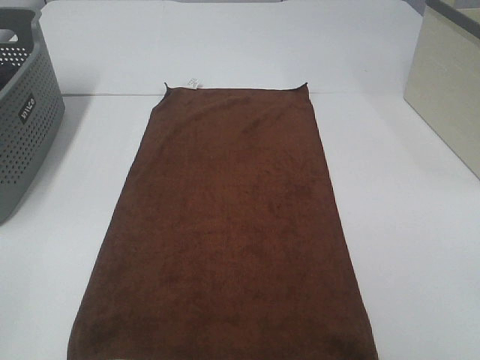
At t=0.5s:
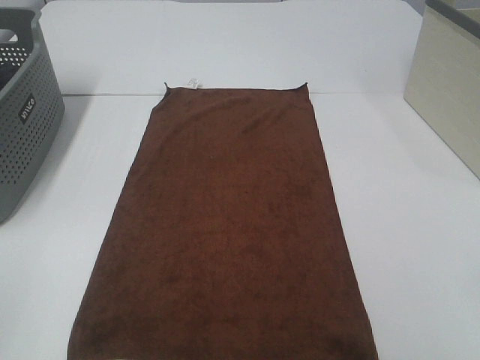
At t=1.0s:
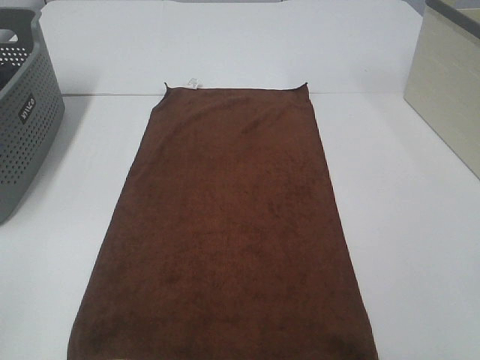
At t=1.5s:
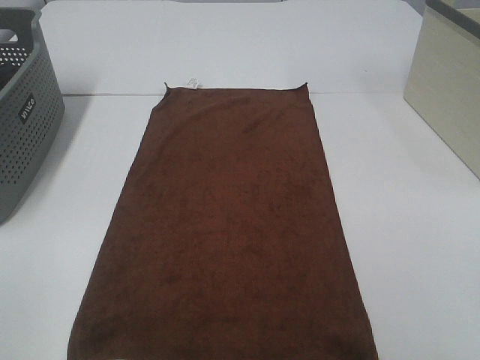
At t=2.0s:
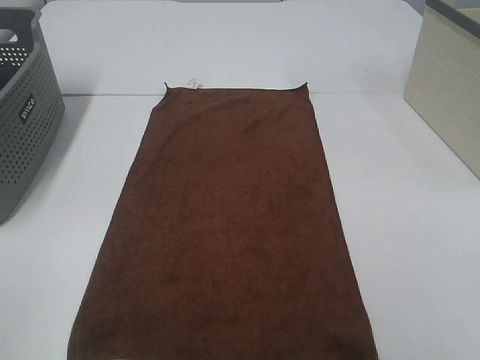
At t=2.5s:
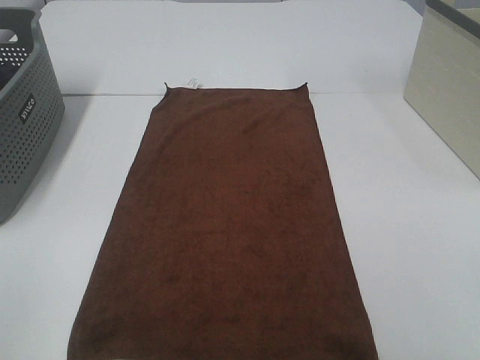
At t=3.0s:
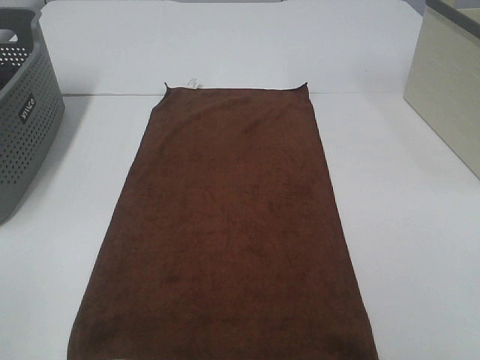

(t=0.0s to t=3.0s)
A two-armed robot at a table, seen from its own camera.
Task of the whole recording: Remove the towel and place it.
t=1.5s - t=3.0s: Both grippers stay about where they are.

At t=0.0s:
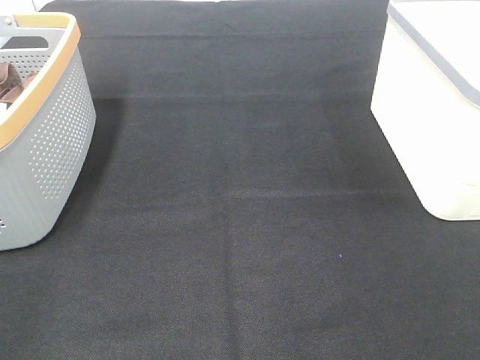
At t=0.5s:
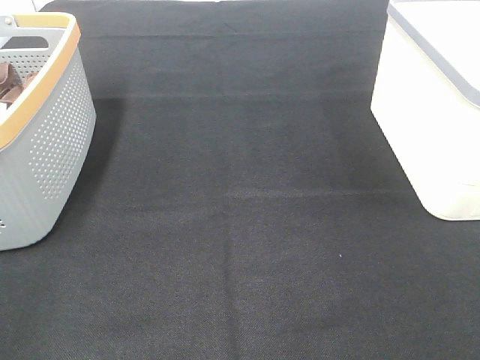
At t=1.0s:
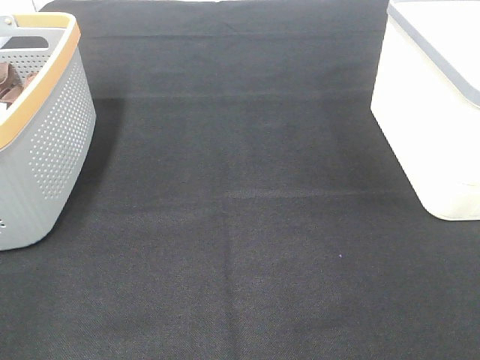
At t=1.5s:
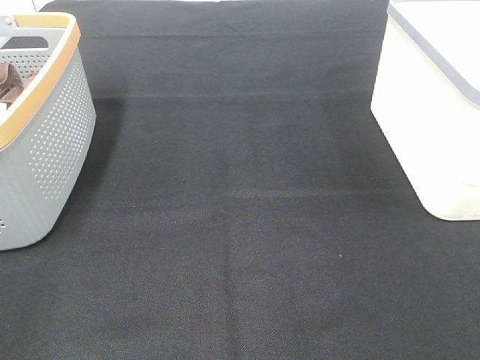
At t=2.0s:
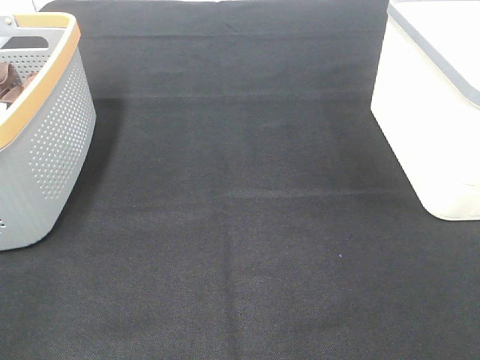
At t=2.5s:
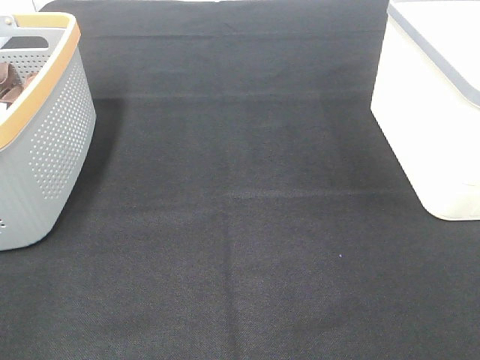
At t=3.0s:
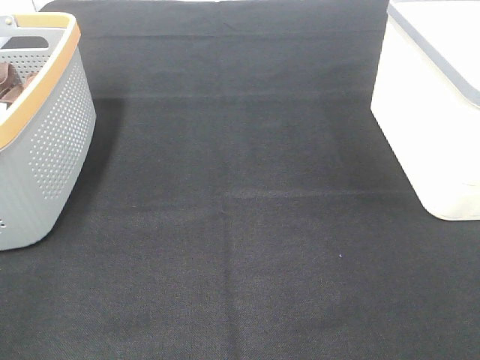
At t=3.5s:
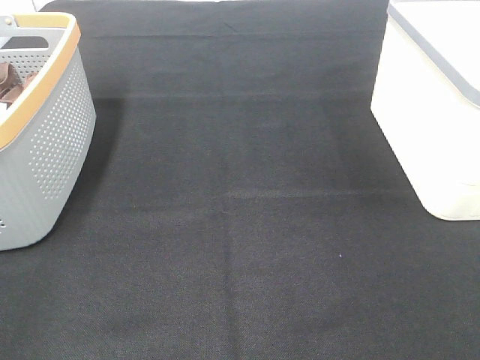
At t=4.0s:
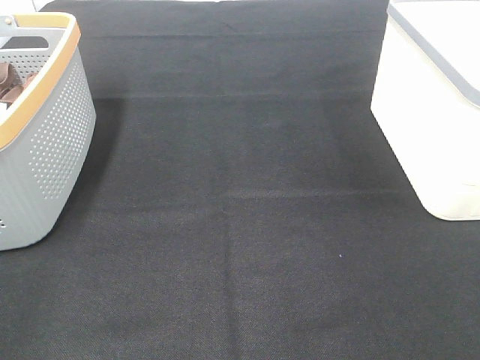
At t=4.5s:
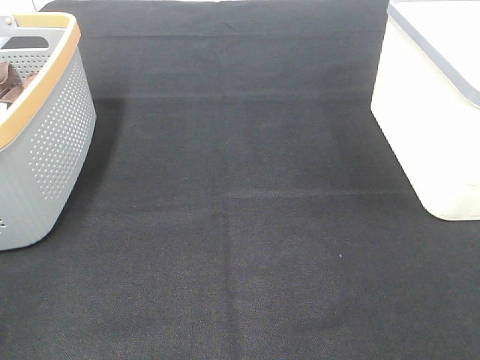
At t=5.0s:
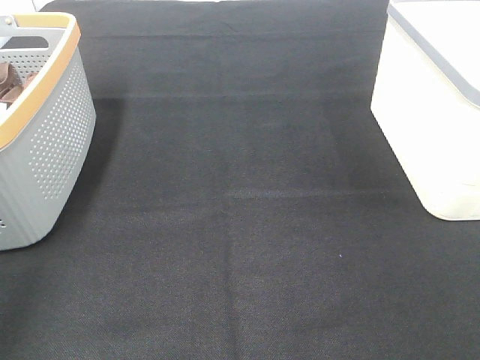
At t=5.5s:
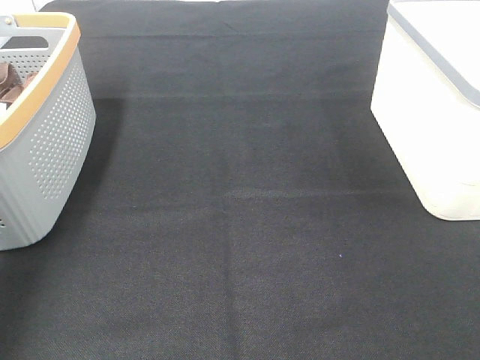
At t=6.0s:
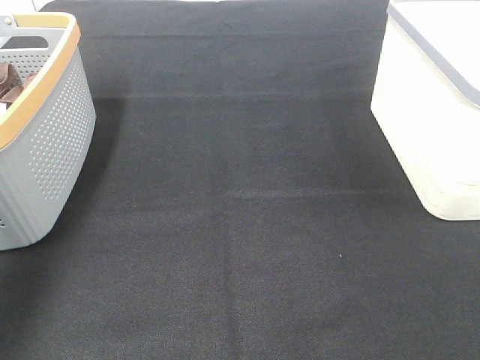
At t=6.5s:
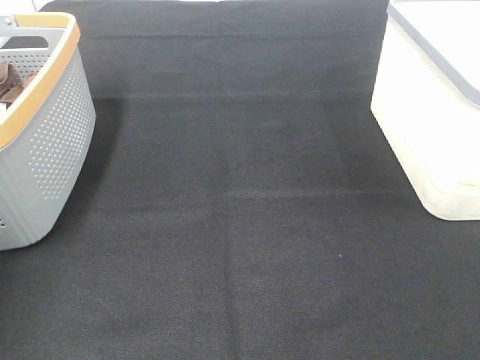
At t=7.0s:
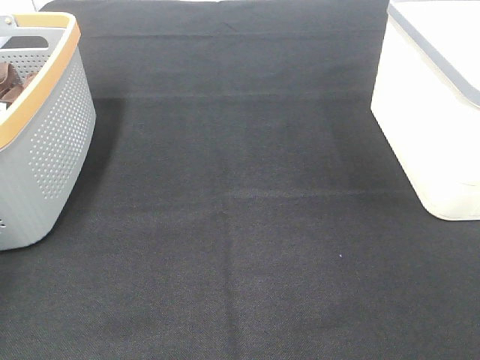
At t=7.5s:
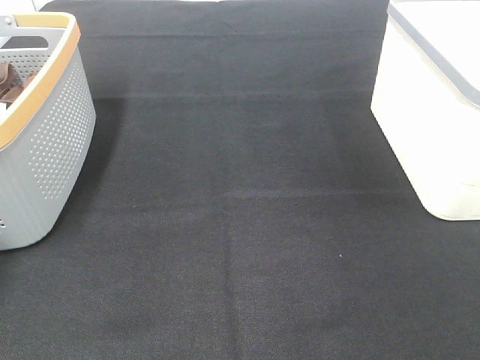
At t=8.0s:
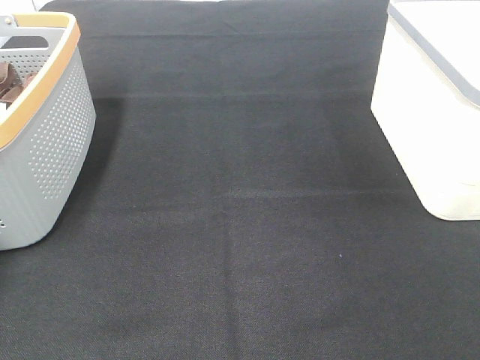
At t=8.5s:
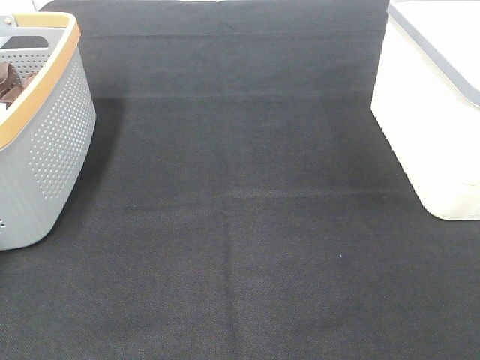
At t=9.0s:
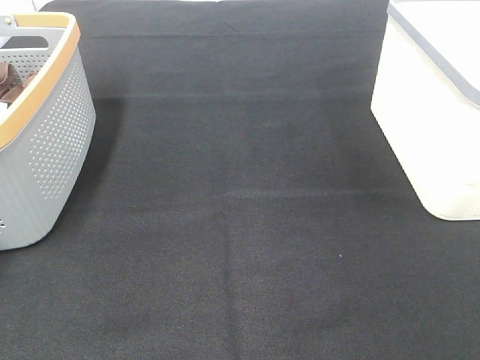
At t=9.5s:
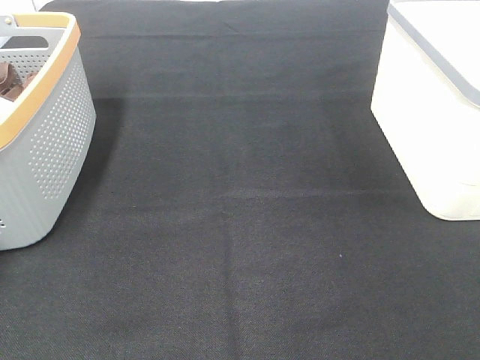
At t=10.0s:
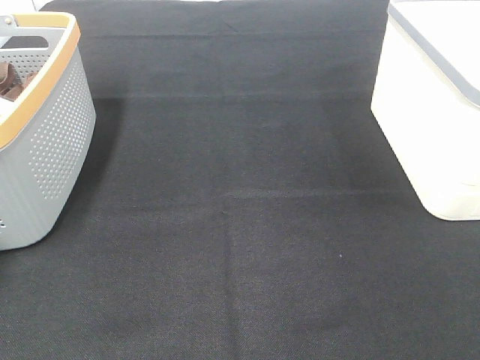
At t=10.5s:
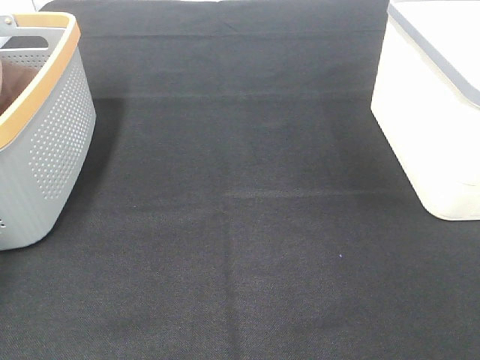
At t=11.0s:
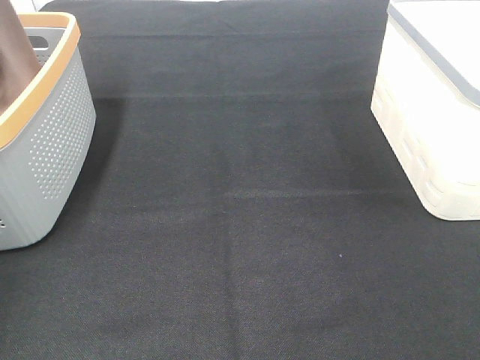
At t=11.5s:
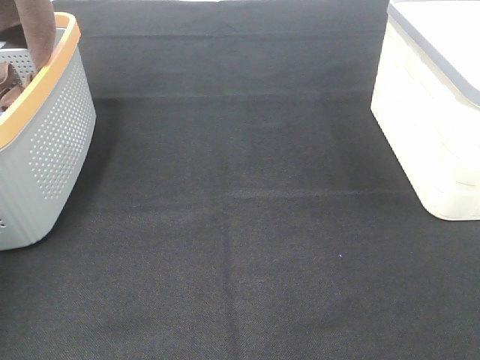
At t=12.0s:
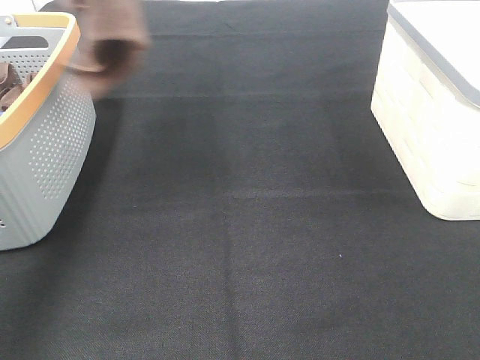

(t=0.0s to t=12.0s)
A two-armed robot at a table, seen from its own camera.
Task of the whole recording: Remove the towel and place it.
t=0.0s - t=4.0s: The two grippers keep their place.
t=4.0s - t=6.0s: The left gripper travels forward by roughly 30 cm.
t=6.0s - t=8.0s: The left gripper shifts approximately 20 cm forward, to the left and downward.
t=10.0s - t=12.0s: The left gripper shifts some 40 cm upward, to the right and backward.

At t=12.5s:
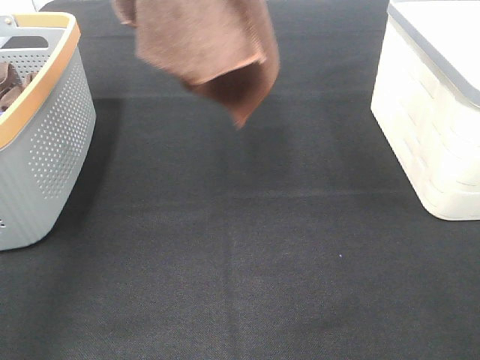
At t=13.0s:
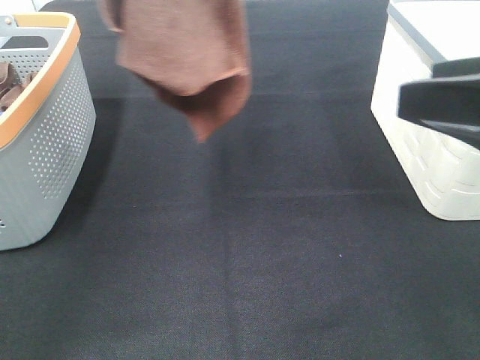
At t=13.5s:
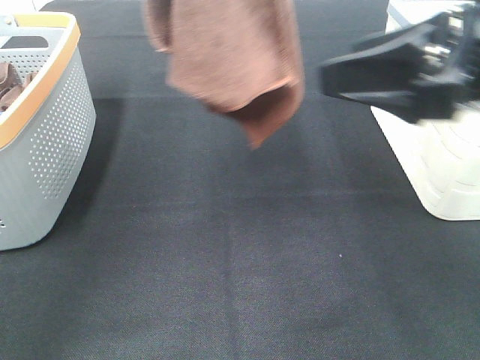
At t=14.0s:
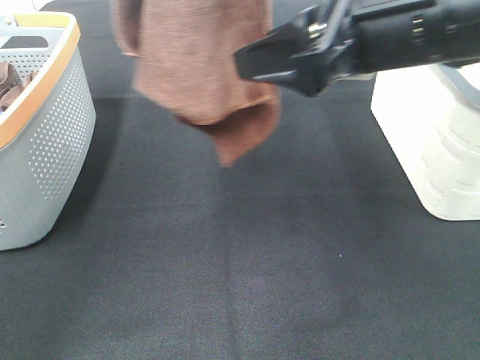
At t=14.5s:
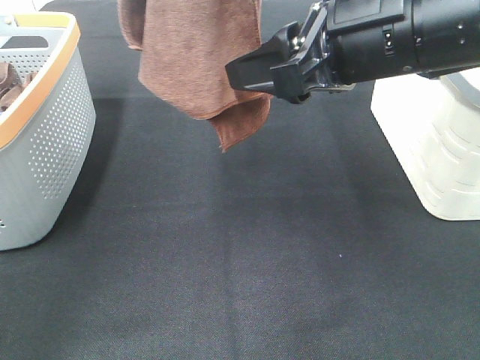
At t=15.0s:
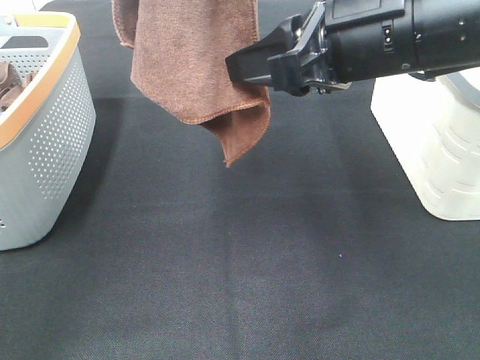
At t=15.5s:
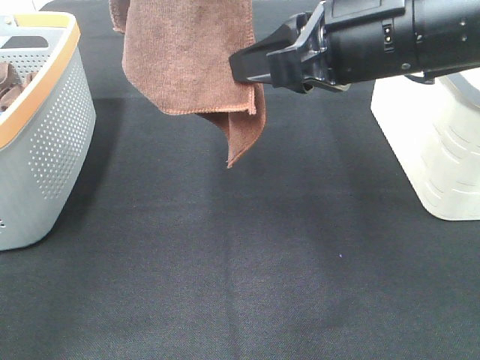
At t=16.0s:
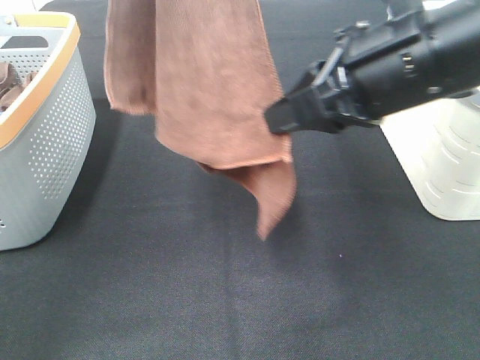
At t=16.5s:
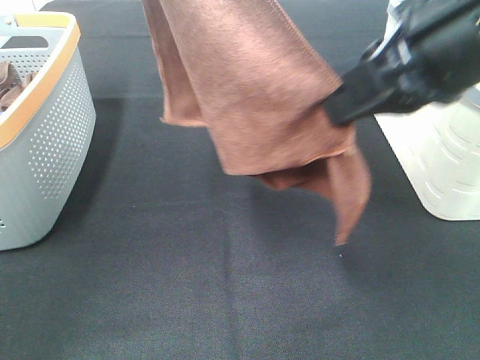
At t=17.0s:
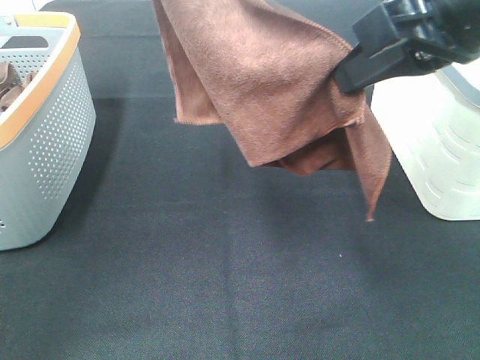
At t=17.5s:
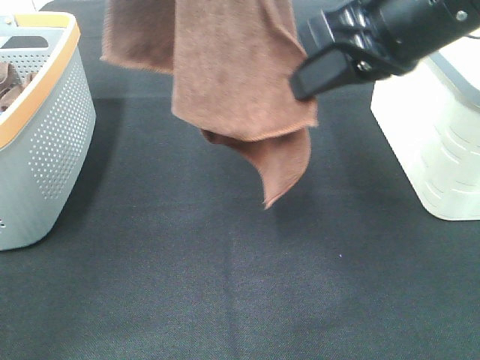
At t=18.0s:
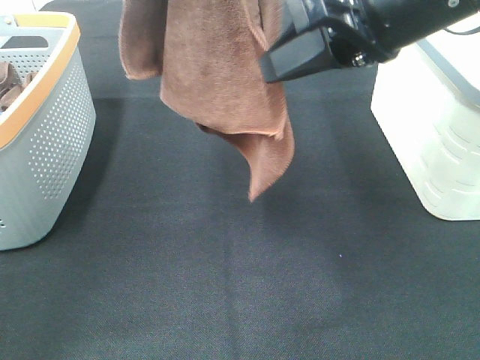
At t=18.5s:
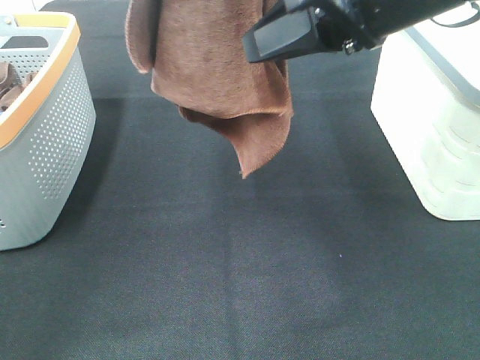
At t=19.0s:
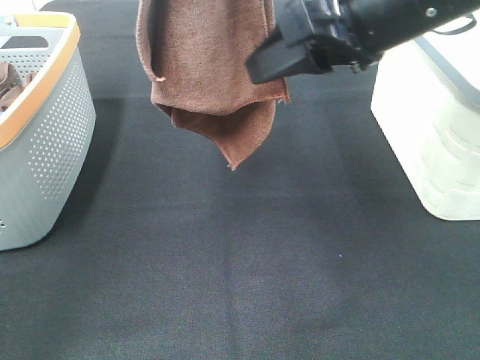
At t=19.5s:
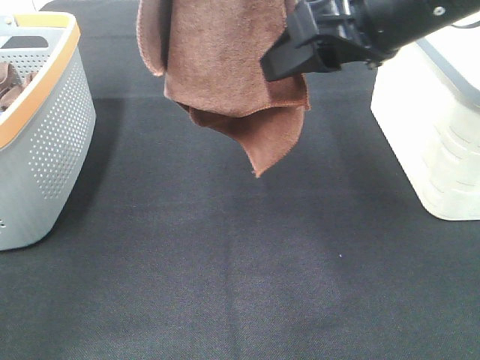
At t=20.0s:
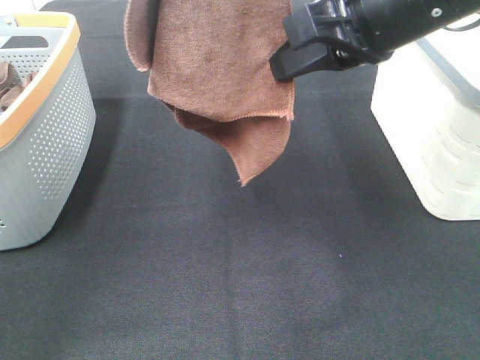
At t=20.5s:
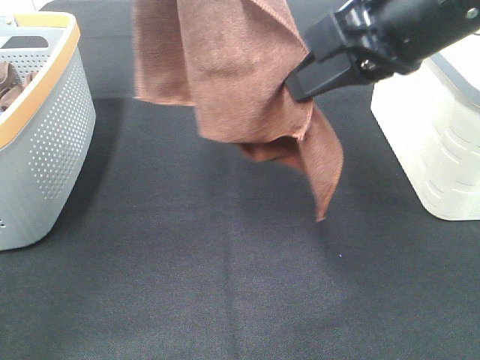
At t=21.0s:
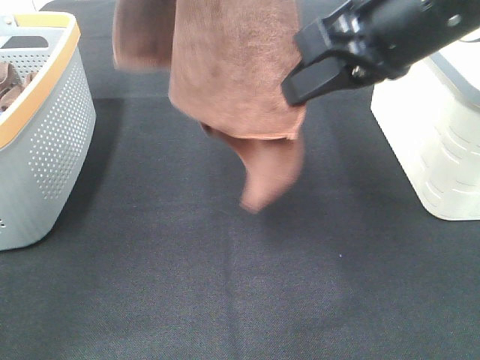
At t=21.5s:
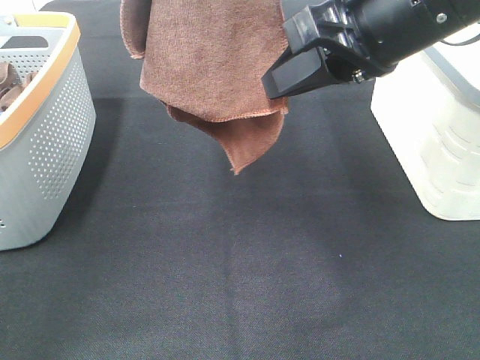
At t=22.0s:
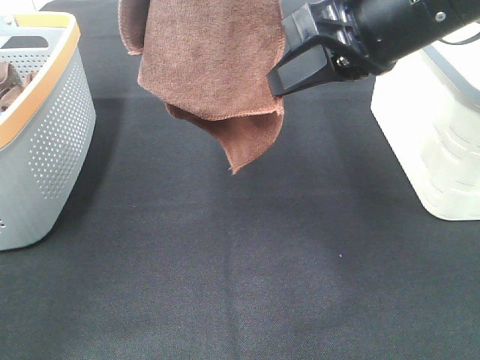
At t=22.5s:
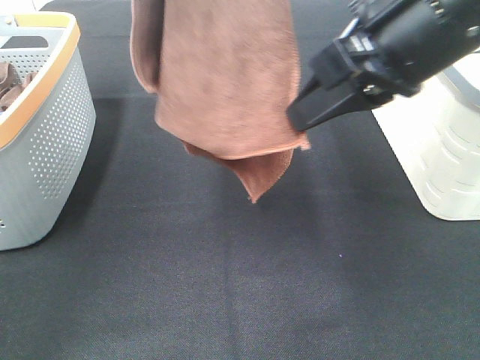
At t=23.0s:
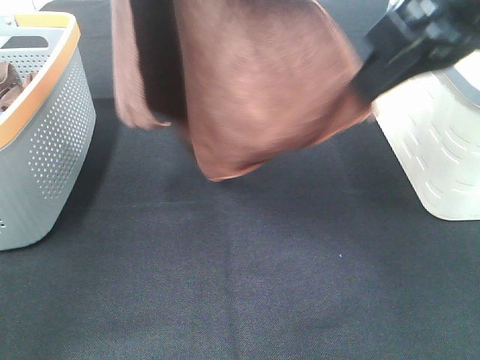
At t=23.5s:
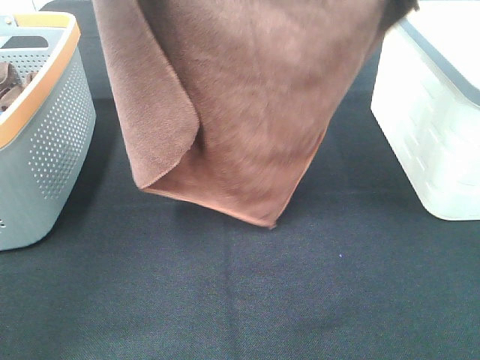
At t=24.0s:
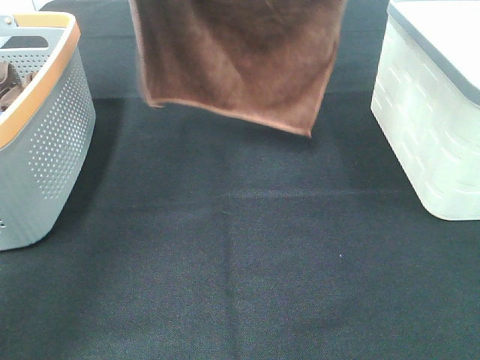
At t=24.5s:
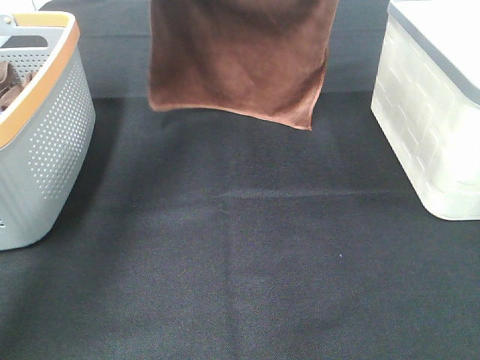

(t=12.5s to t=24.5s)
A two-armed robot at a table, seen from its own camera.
Task of the whole recording: Remove the towel and place it.
Step, t=12.5s - t=19.0s: Right hand: grab a corner of the brown towel and straighten it.
Step, t=19.5s - t=21.0s: Left hand: spread the brown towel flat on the table.
Step, t=19.5s - t=21.0s: Right hand: spread the brown towel flat on the table.
t=12.5s - t=14.5s: The right gripper travels forward and to the left by approximately 20 cm.
t=14.5s - t=16.5s: The left gripper changes place by roughly 5 cm. The right gripper moves approximately 5 cm, and closes.
t=16.5s - t=18.5s: The left gripper moves approximately 5 cm, while the right gripper opens its fingers.
t=18.5s - t=20.5s: The right gripper closes.
t=20.5s - t=22.5s: The right gripper opens, then closes again.
t=22.5s - t=24.5s: The left gripper heads downward and forward, covering approximately 30 cm, while the right gripper heads forward, covering approximately 20 cm.
